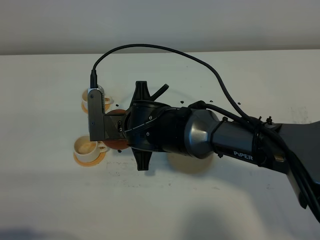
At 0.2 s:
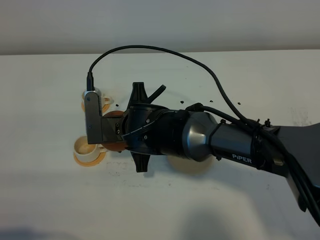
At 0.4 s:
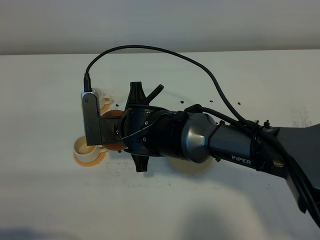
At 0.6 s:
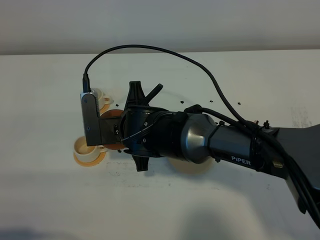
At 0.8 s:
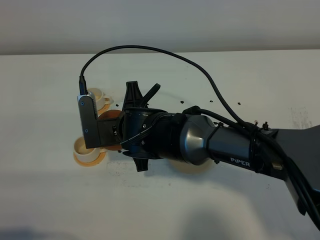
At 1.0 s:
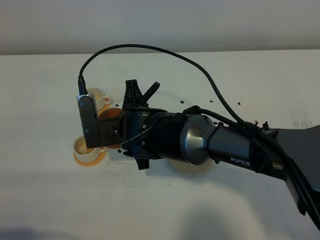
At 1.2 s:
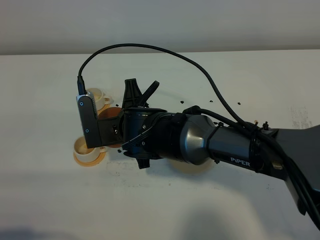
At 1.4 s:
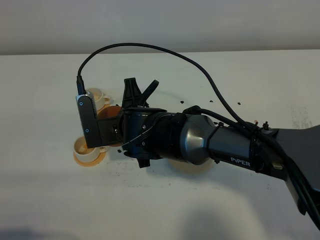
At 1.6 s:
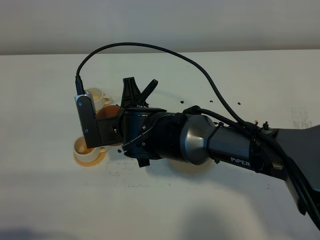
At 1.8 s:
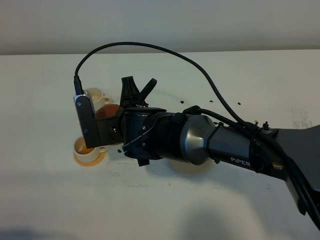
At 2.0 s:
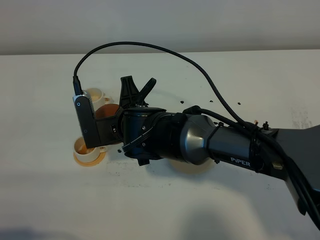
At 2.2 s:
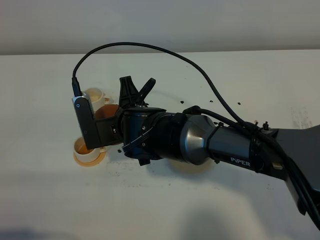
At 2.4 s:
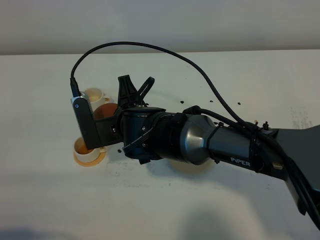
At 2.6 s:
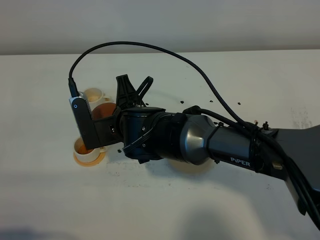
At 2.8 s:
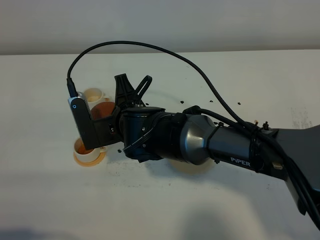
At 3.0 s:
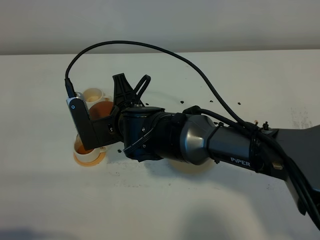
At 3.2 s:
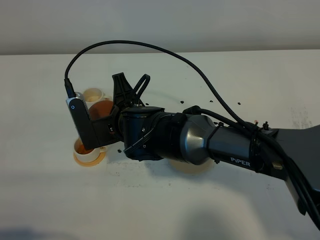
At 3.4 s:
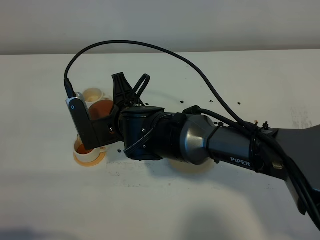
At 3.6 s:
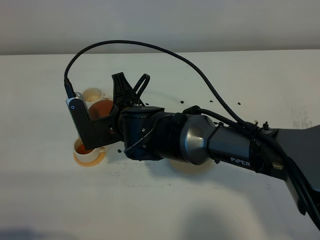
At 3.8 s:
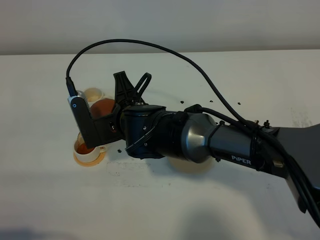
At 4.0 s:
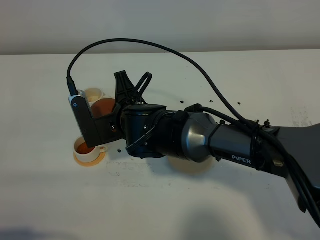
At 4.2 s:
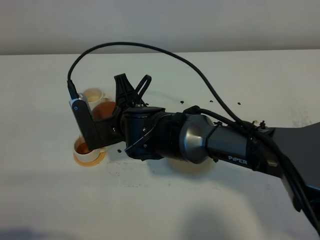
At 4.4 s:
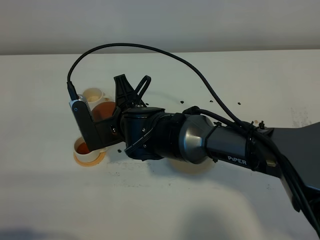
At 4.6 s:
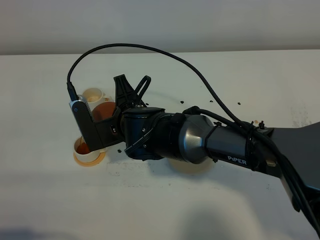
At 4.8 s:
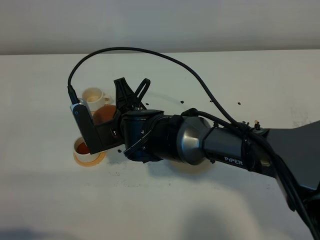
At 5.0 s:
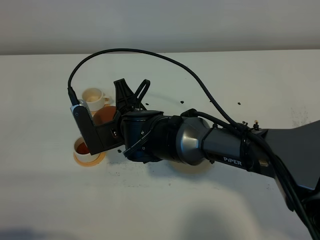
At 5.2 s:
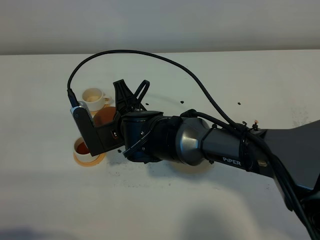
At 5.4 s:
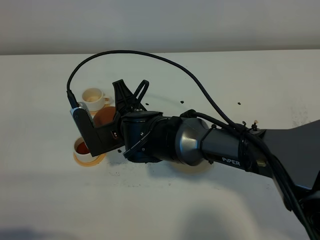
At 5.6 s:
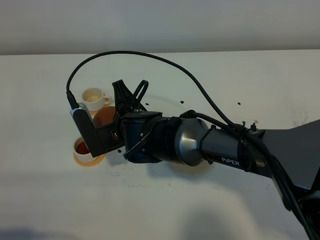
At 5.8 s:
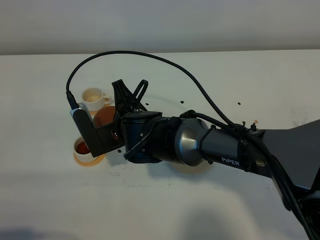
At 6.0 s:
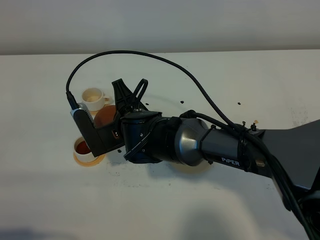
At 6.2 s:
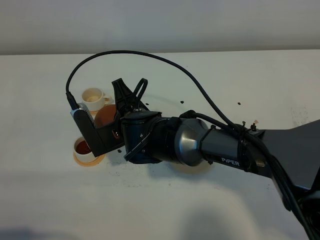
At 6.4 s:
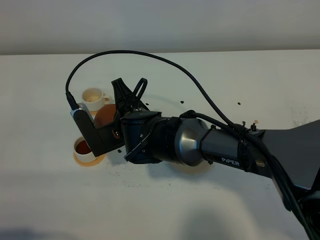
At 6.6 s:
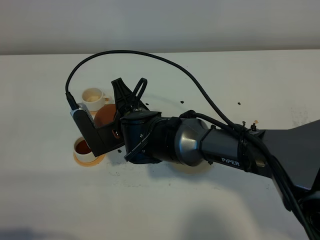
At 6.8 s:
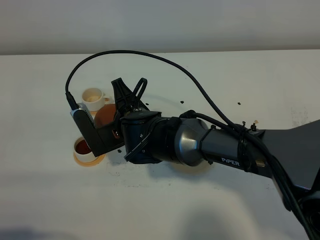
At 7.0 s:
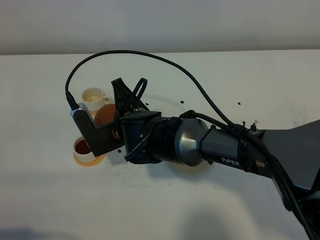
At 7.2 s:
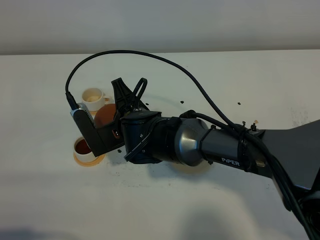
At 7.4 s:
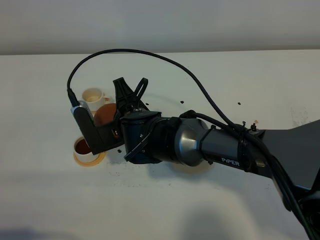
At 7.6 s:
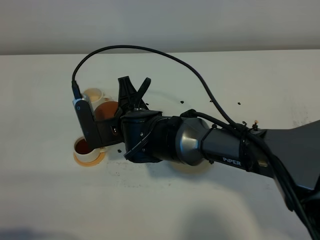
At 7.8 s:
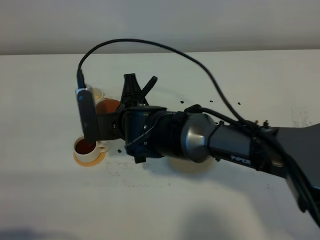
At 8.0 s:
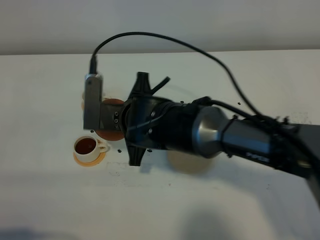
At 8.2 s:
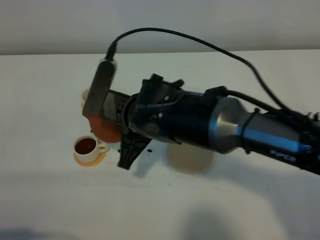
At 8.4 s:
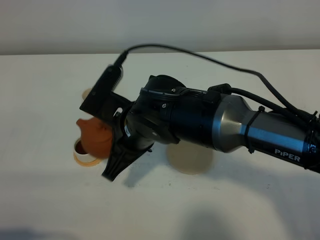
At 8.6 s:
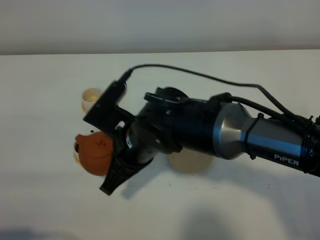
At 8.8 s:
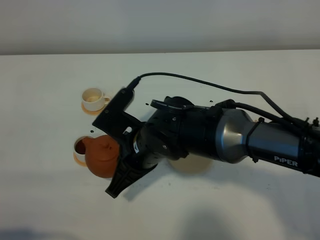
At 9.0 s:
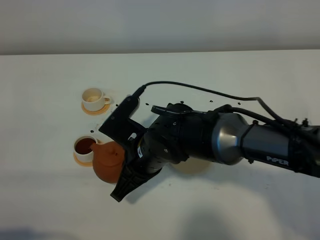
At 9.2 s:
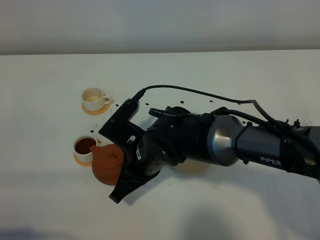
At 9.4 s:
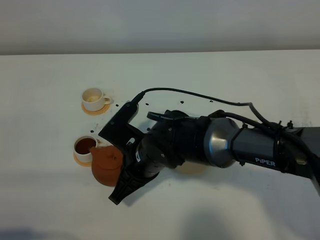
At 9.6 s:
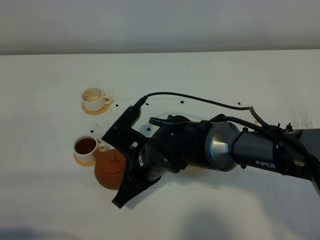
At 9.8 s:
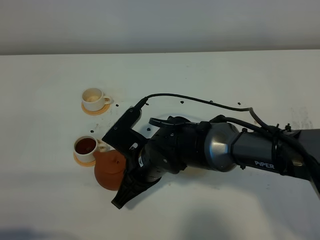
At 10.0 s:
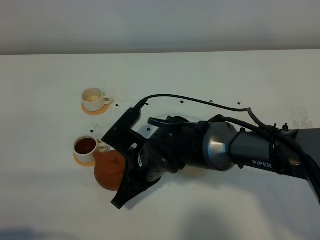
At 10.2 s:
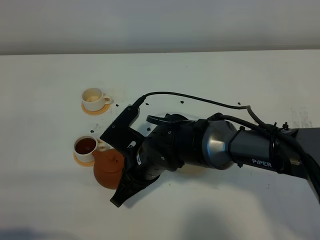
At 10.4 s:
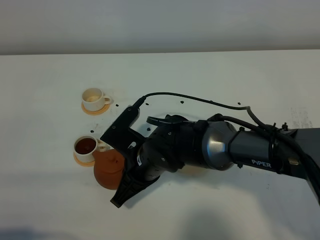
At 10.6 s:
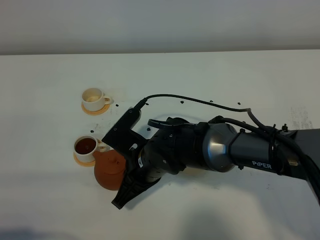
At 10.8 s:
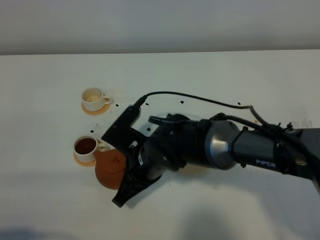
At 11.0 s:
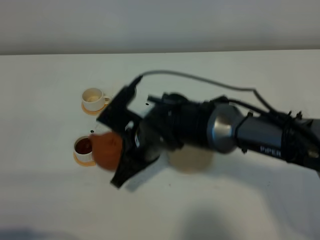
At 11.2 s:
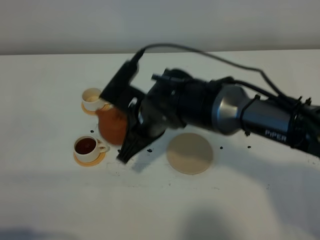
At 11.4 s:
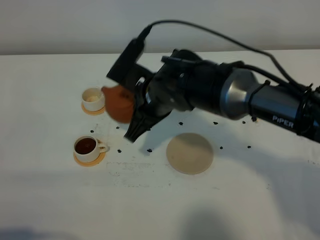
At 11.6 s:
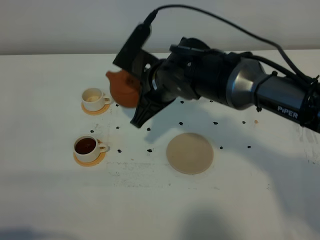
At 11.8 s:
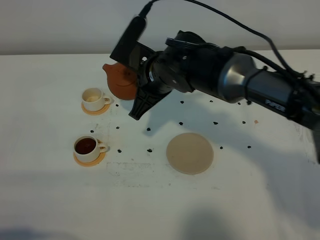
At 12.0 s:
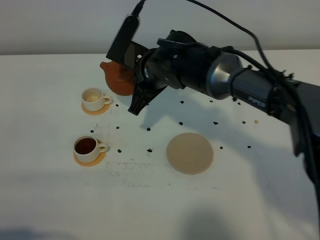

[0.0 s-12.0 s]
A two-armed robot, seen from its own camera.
Task of the whole recording: grasp the brown teapot and pour the tea into the two white teacups one by one, put the brown teapot back in its original place.
Step, 0.0 to 7.8 s: Pour tea into the teacup with the right gripper.
0.0 to 3.0 s: There are only small adjustments of the grippers.
3.0 to 4.4 s: Neither gripper changes place.
4.4 to 7.6 s: The grippers make only small movements.
7.6 to 9.0 s: The right gripper shifts by about 5 cm.
9.0 to 10.4 s: The grippers move only a little.
10.4 to 12.0 s: The right gripper moves forward and upward, approximately 15 cm.

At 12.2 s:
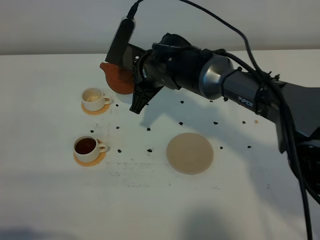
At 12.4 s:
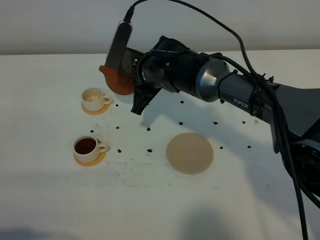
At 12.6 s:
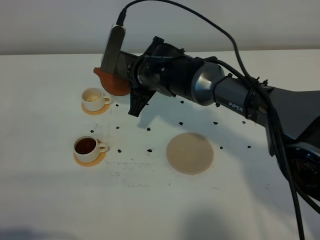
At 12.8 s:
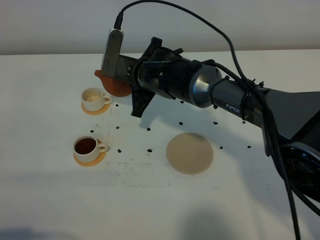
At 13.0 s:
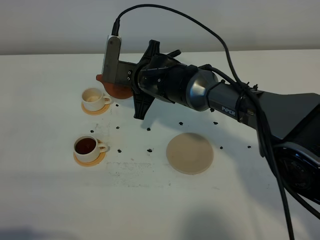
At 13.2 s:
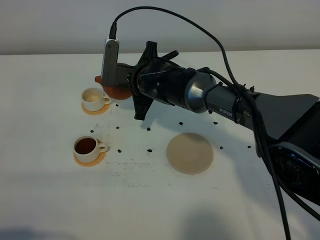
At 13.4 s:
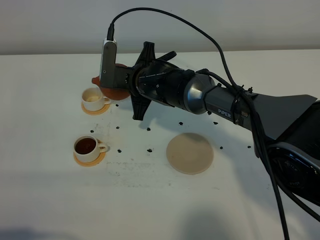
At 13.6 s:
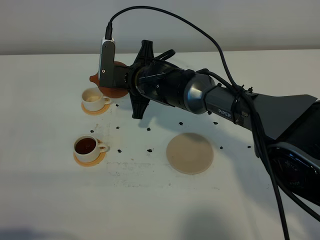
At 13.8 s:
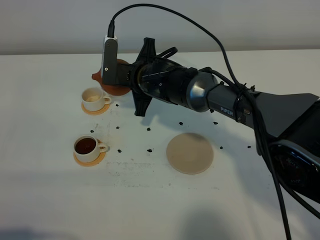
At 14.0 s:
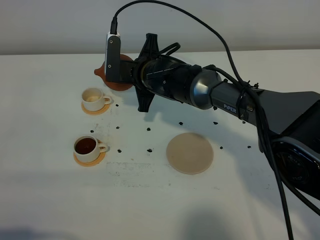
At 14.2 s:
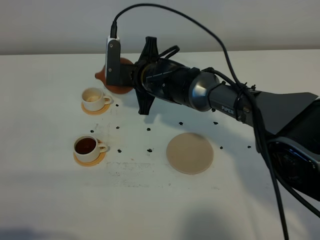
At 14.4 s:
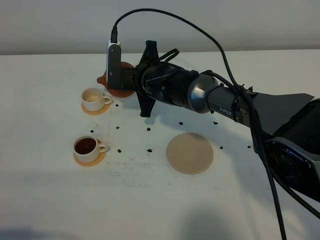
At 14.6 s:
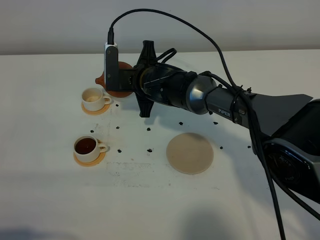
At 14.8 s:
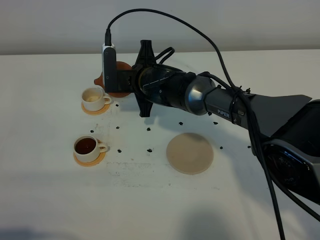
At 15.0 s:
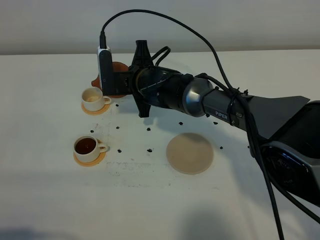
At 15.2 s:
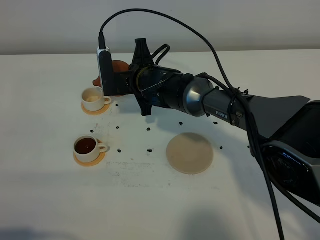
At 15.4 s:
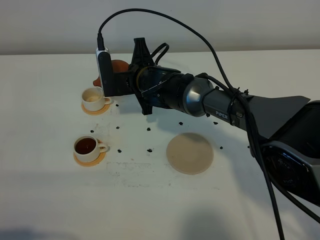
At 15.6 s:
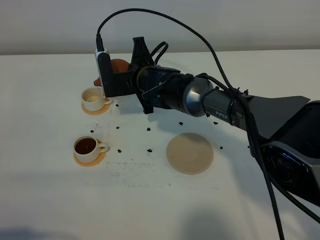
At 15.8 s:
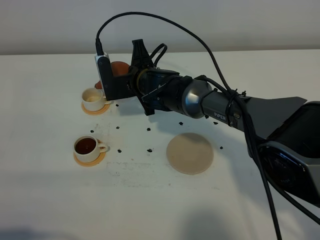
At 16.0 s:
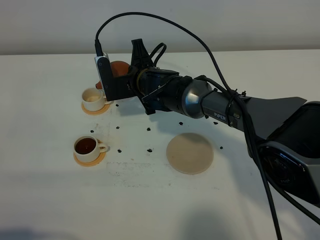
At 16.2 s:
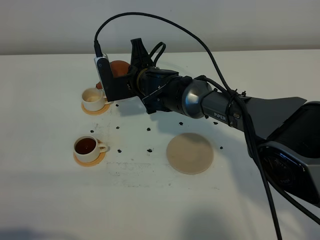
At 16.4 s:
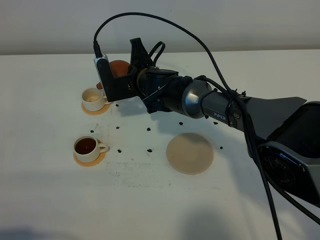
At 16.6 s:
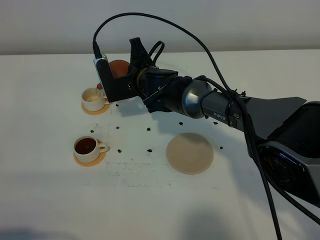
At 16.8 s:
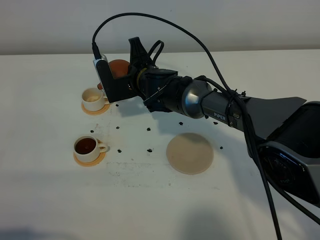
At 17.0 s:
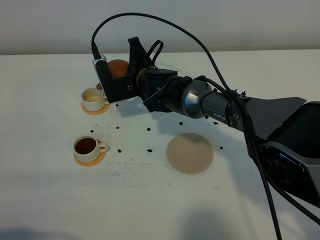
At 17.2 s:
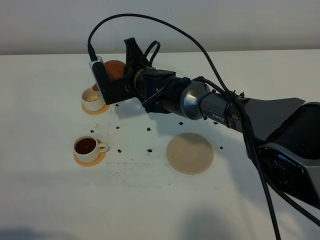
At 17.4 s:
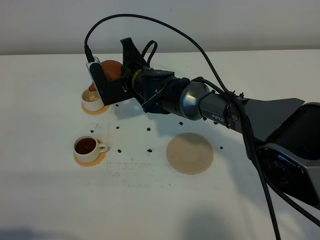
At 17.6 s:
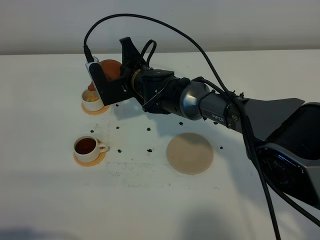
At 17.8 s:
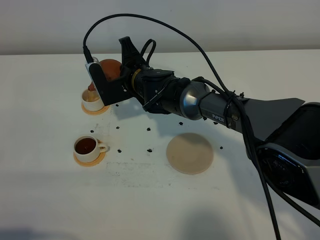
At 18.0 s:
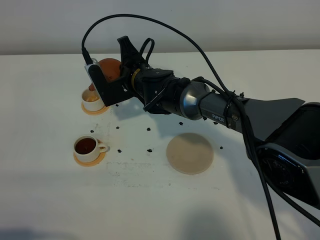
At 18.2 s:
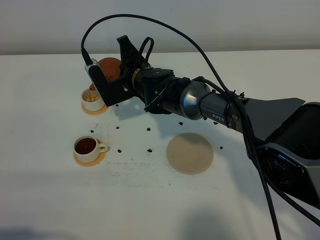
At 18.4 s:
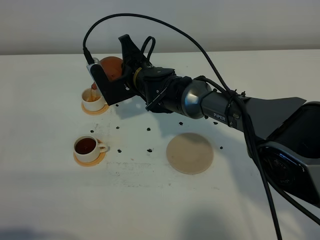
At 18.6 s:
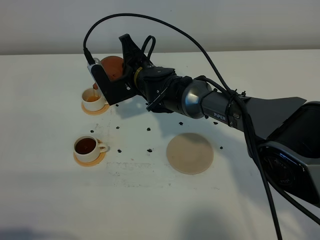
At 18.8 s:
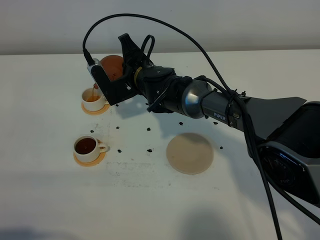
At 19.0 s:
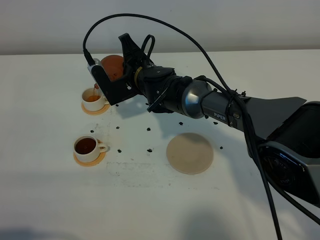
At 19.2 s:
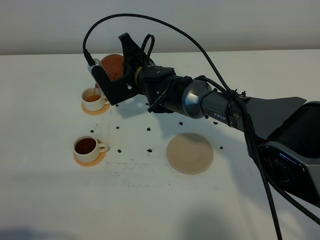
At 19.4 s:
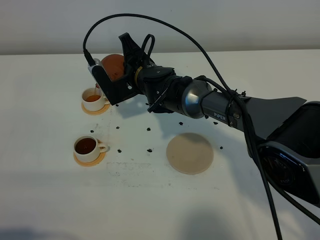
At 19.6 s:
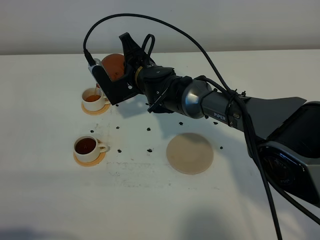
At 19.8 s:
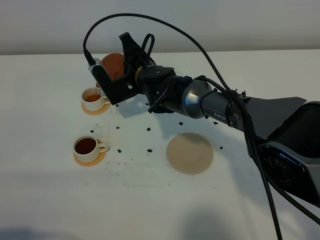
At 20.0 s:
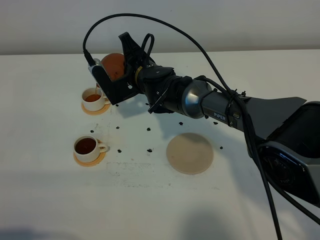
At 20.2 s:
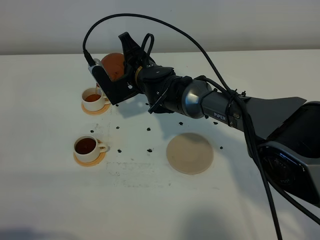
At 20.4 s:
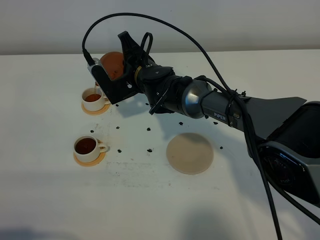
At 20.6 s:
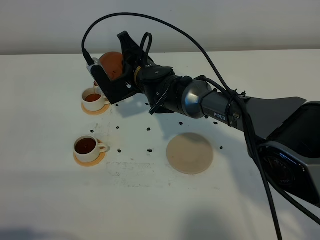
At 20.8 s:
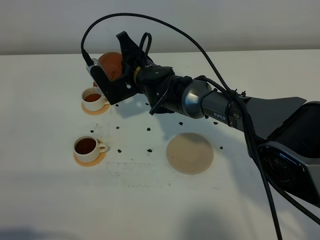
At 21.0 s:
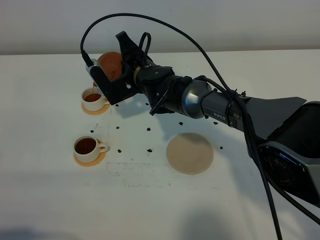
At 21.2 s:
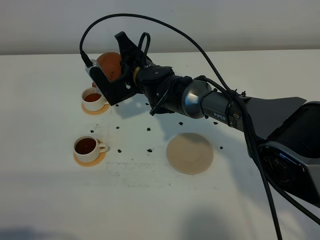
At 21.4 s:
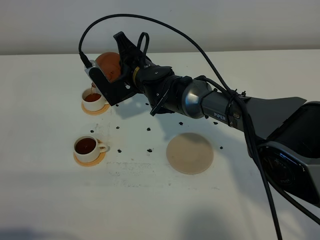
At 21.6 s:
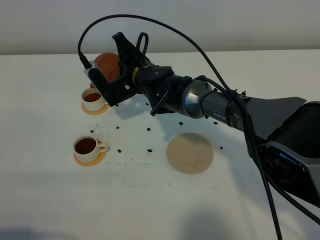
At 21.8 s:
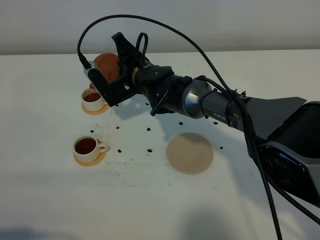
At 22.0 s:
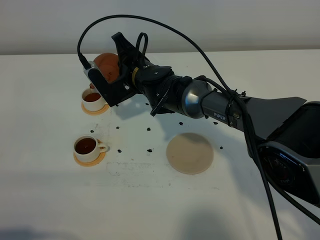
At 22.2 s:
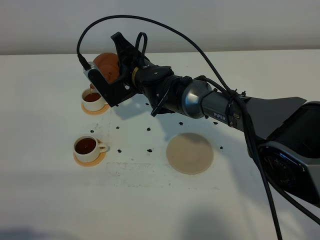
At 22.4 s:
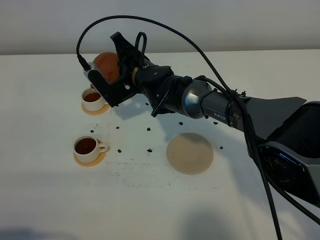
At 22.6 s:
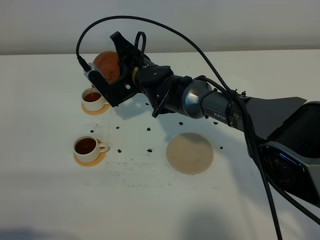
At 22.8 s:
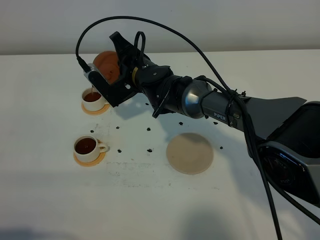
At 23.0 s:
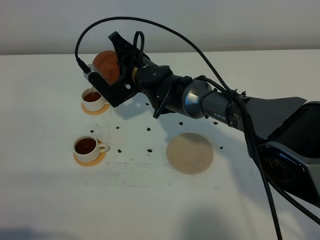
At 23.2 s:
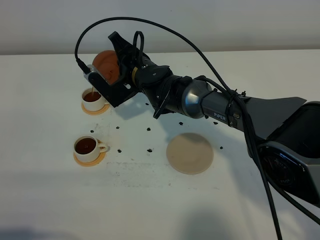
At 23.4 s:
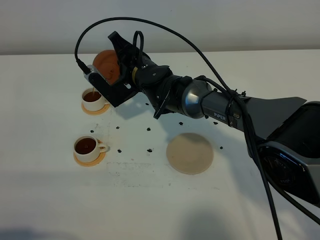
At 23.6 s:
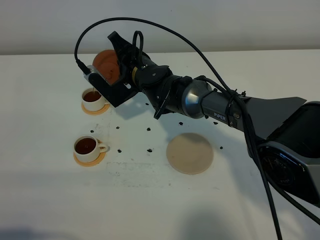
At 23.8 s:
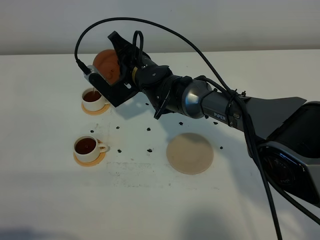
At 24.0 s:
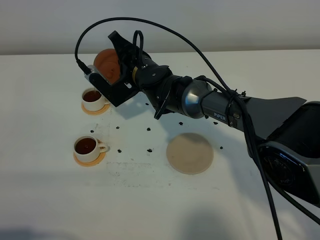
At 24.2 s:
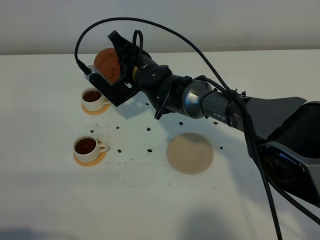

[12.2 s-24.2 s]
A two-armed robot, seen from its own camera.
Task of the whole recording: grasp the brown teapot and pour the tea into the two white teacups one by one, put the brown teapot back in its original place.
13.8 to 15.2 s: The grippers move only a little.
15.2 to 16.6 s: The grippers stay close to where they were, moving slightly.
16.6 to 19.8 s: The grippers move only a little.
19.8 to 21.2 s: Neither gripper changes place.
21.2 to 24.2 s: The grippers move only a little.
